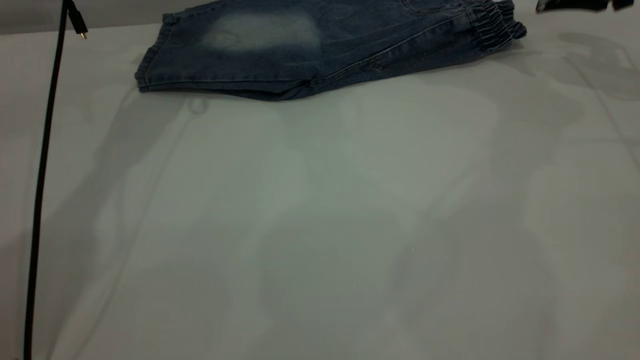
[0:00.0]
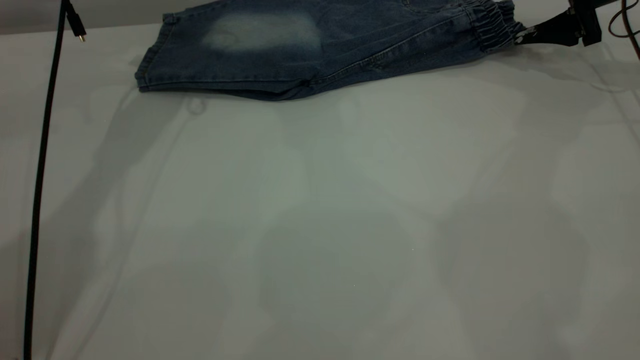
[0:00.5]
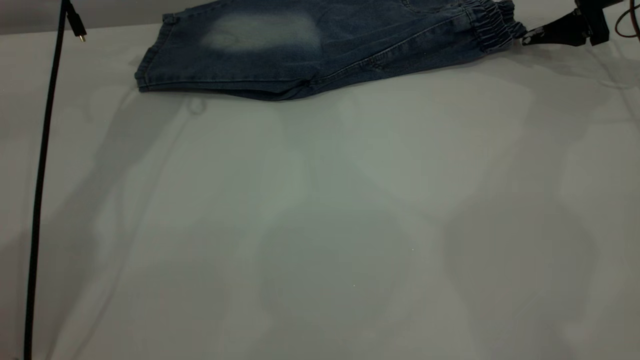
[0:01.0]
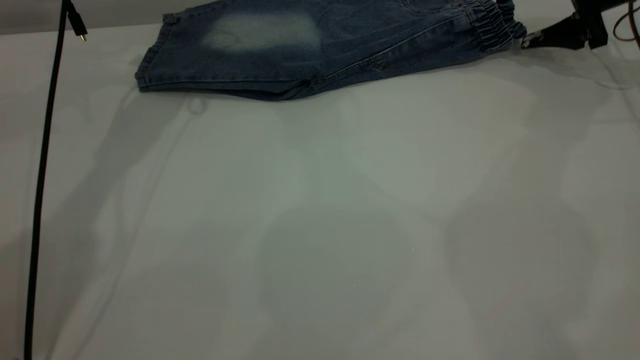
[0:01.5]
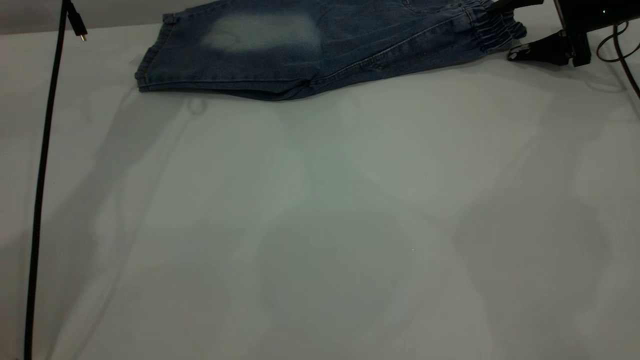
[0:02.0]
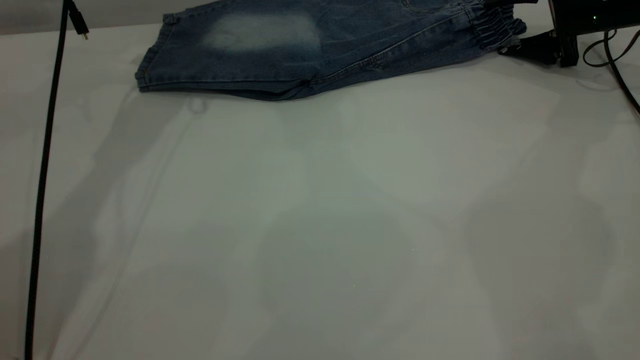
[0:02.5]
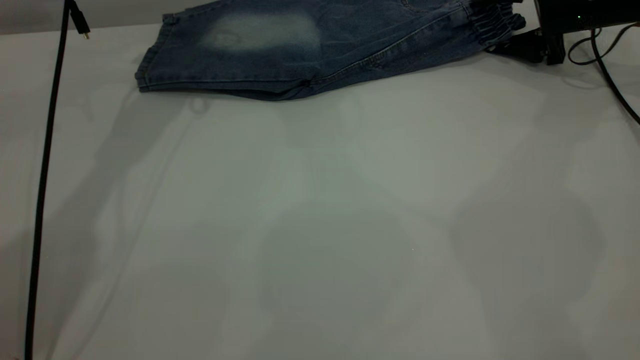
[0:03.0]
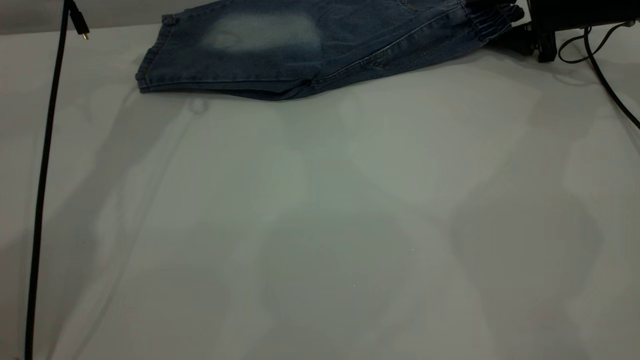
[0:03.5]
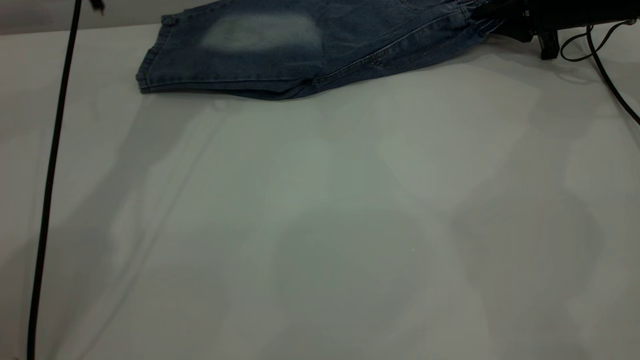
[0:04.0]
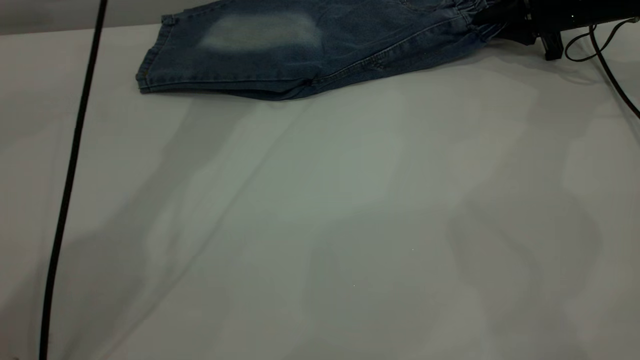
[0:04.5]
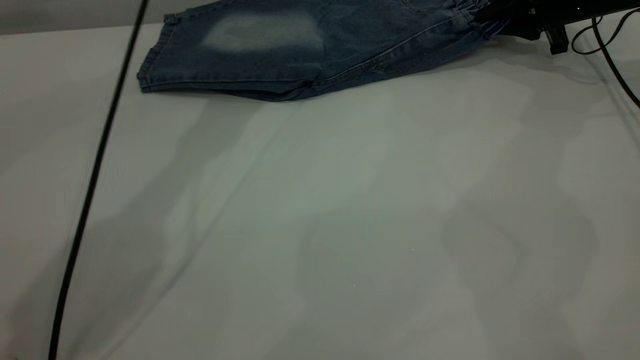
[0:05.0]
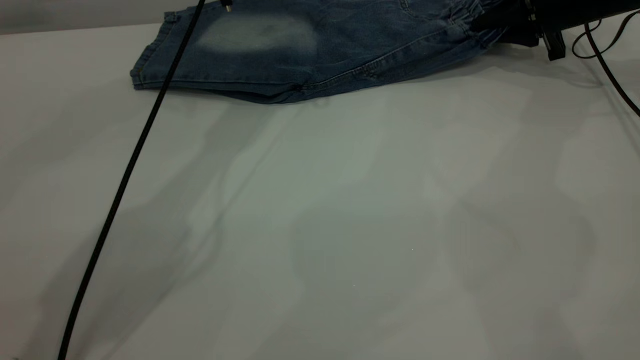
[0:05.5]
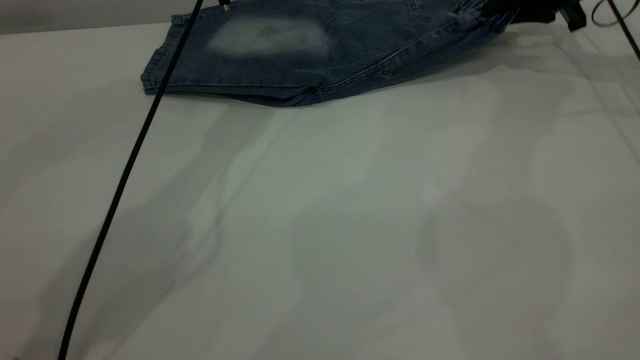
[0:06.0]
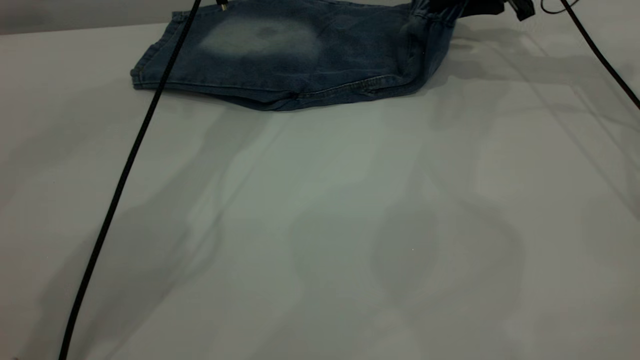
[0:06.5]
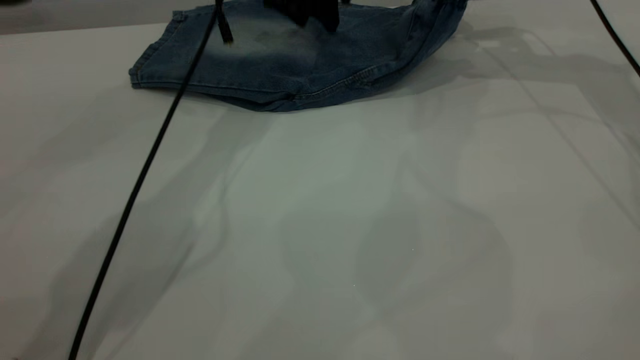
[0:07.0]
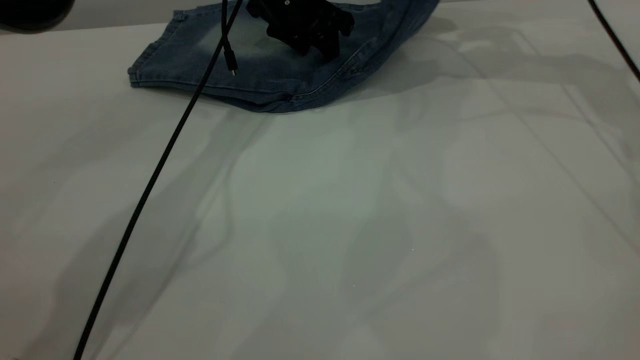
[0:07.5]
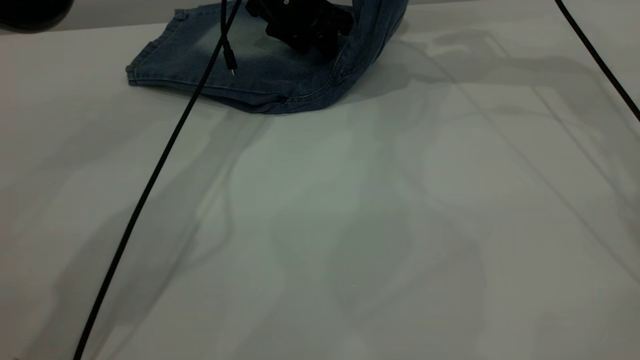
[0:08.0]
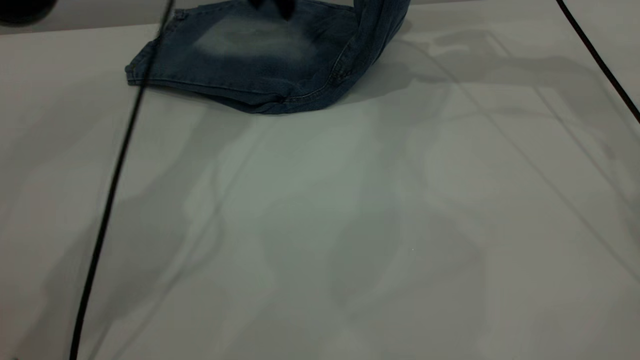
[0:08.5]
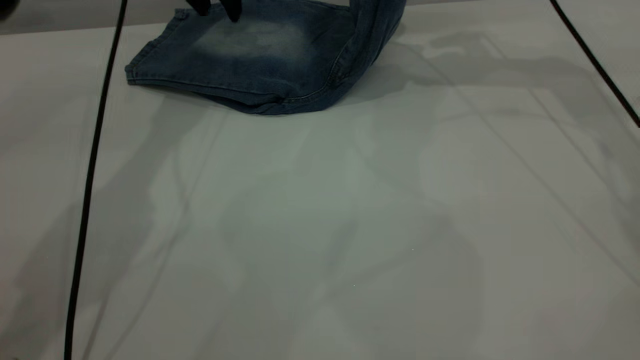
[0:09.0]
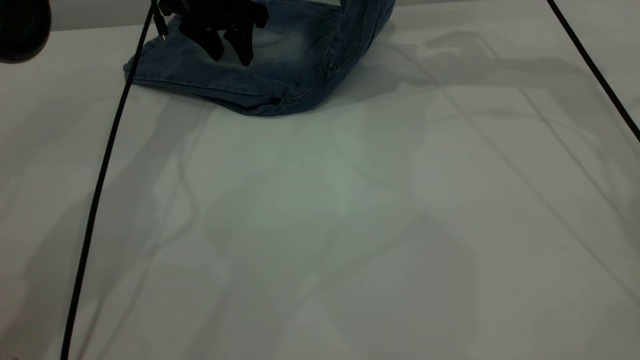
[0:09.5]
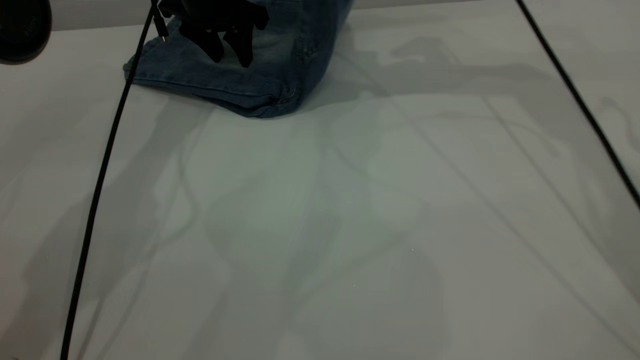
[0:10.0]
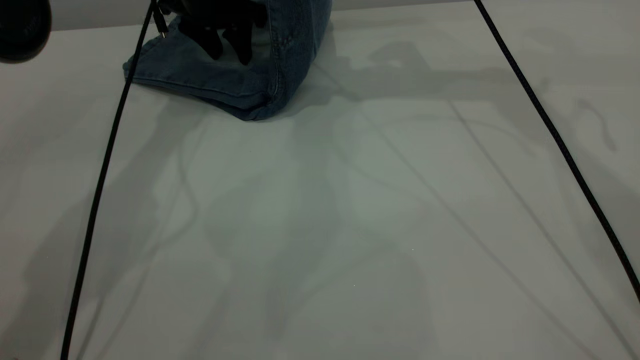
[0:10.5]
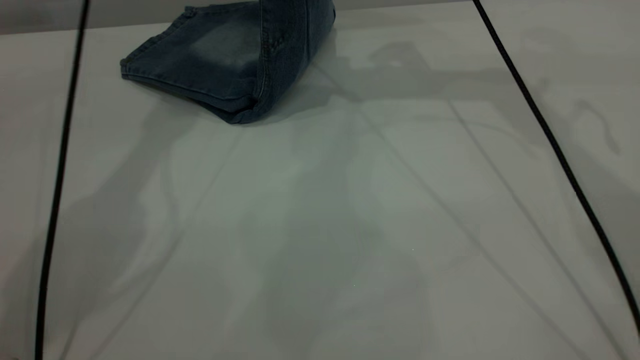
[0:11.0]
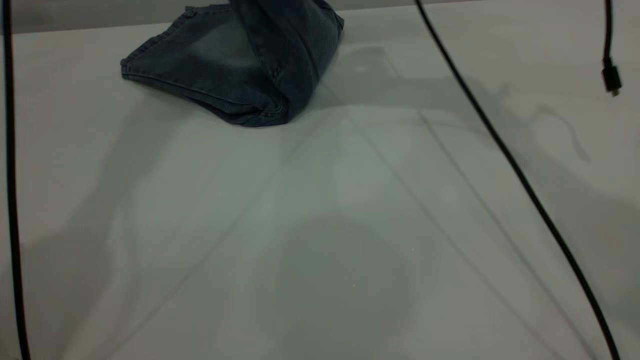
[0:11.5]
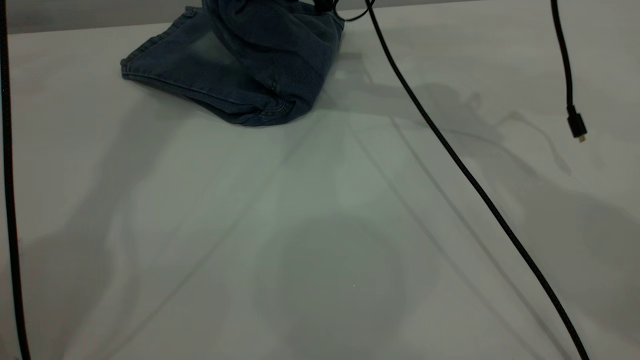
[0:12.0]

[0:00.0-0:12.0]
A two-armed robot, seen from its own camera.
0:00.0 to 0:02.0: The right gripper is displaced downward by about 10 cm.
0:02.0 to 0:04.0: The left gripper shifts by some 5 cm, while the right gripper closes its fingers.
0:04.0 to 0:06.0: The right gripper heads upward, covering approximately 5 cm; the left gripper shifts some 10 cm to the right.
0:06.0 to 0:08.0: The right gripper travels to the left and upward by some 15 cm. The left gripper heads downward, covering about 10 cm.
0:08.0 to 0:10.0: The two grippers go some 10 cm to the left.
0:10.0 to 0:12.0: The right gripper moves to the left and downward, roughly 15 cm; the left gripper moves upward, roughly 30 cm.

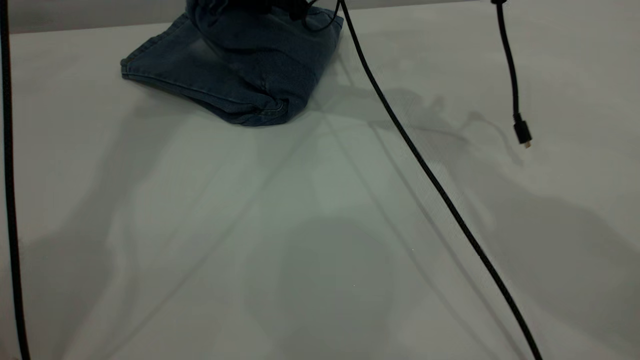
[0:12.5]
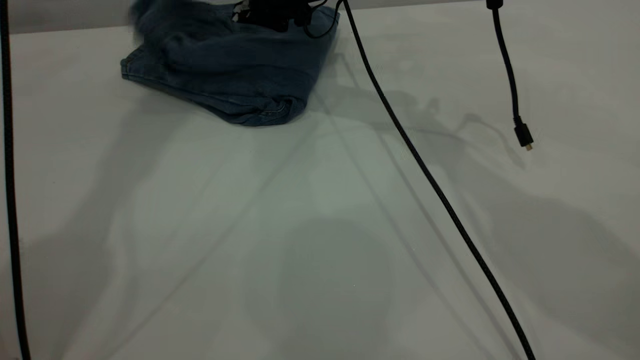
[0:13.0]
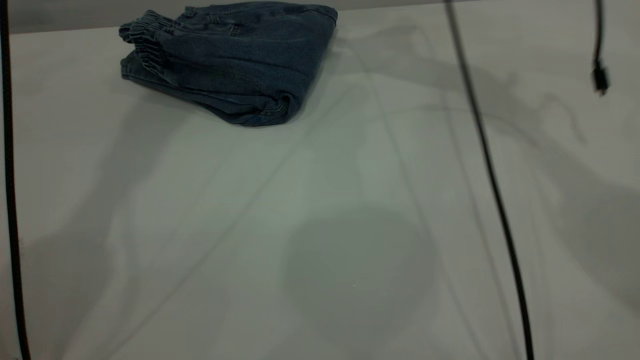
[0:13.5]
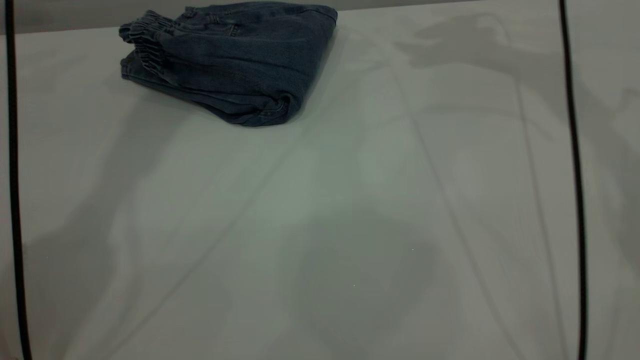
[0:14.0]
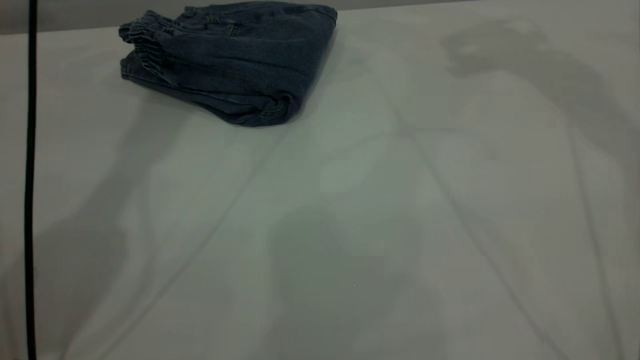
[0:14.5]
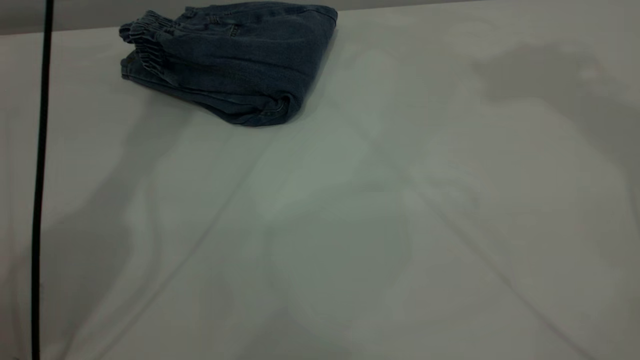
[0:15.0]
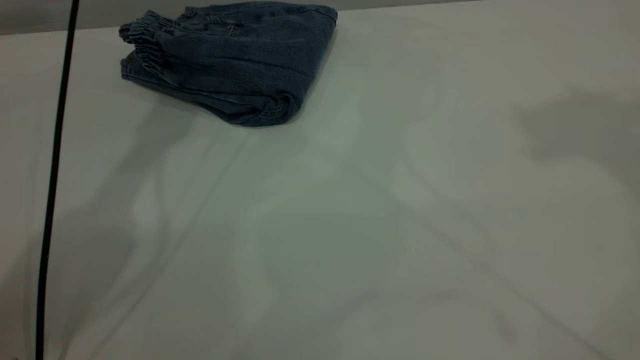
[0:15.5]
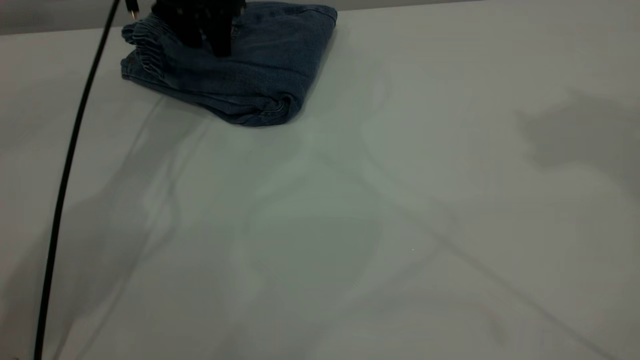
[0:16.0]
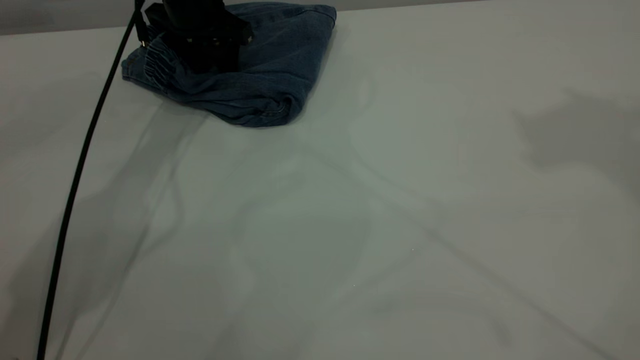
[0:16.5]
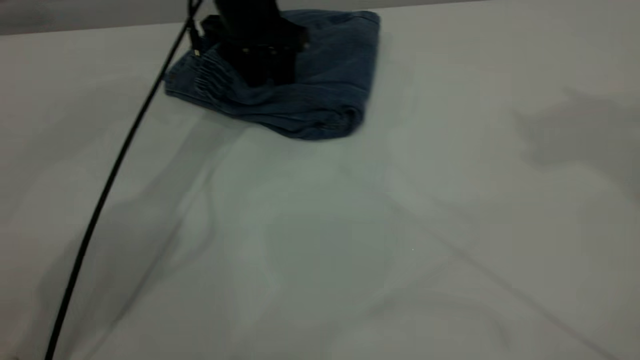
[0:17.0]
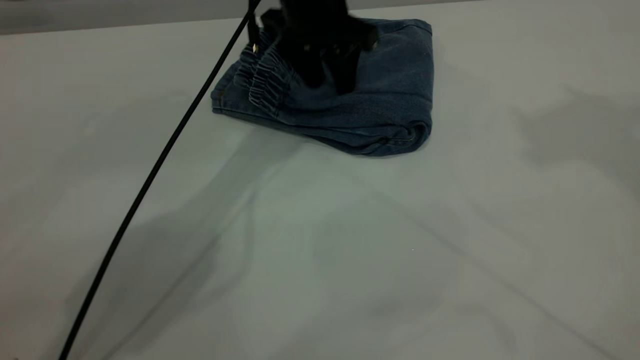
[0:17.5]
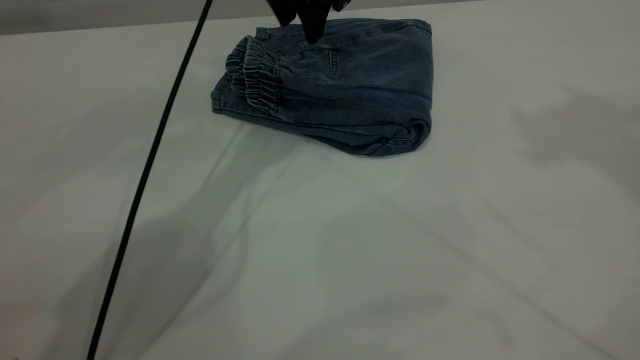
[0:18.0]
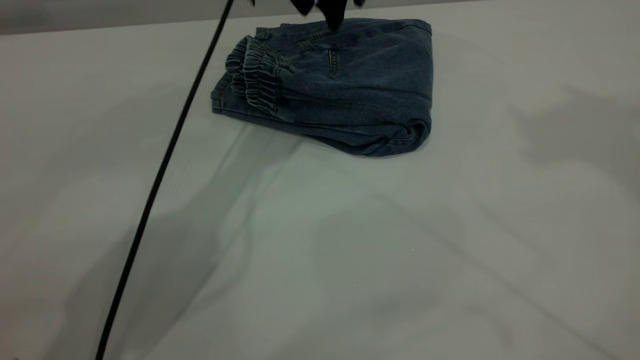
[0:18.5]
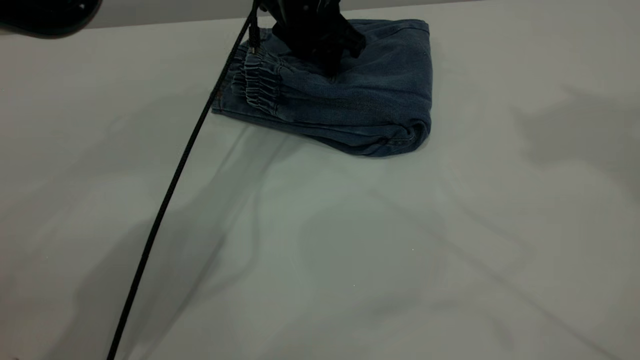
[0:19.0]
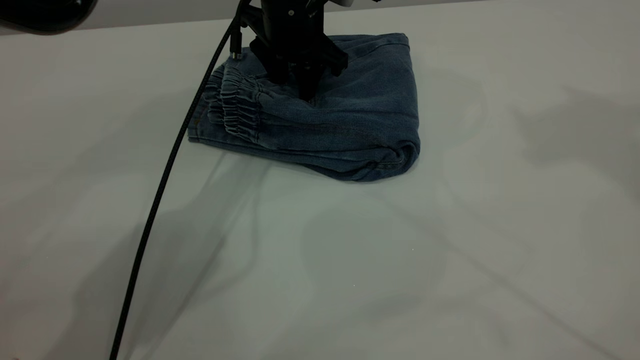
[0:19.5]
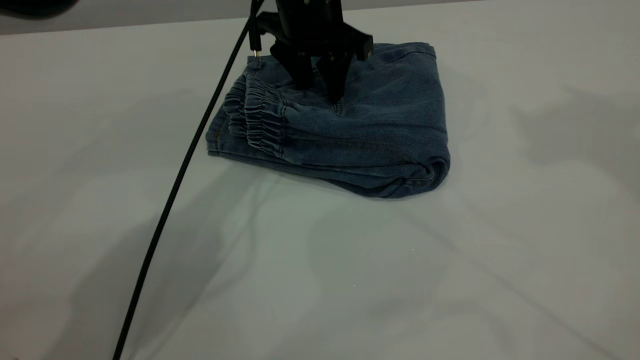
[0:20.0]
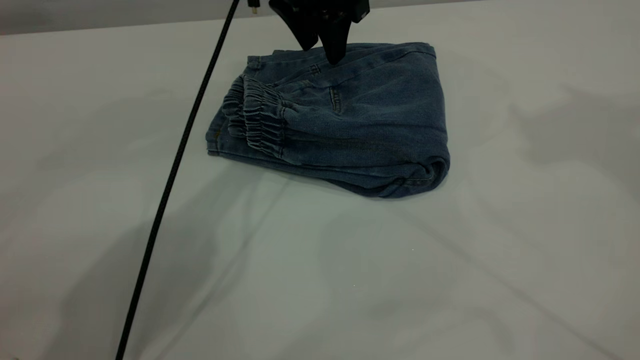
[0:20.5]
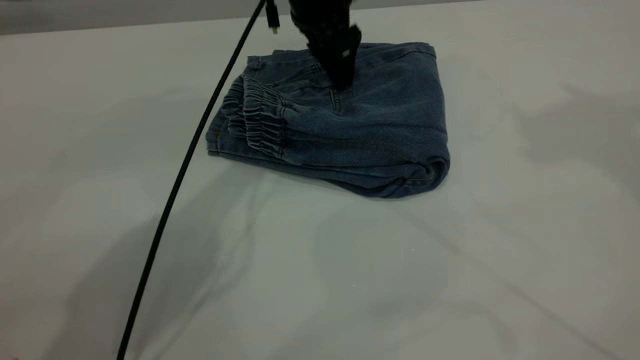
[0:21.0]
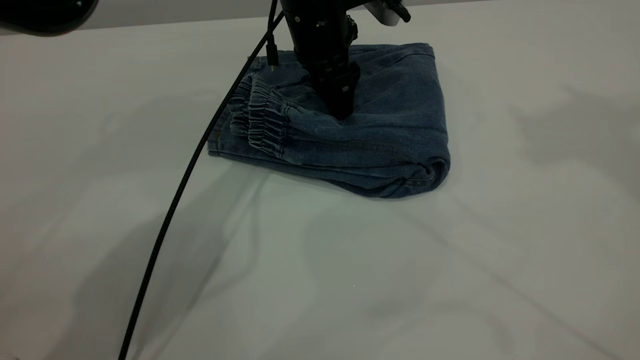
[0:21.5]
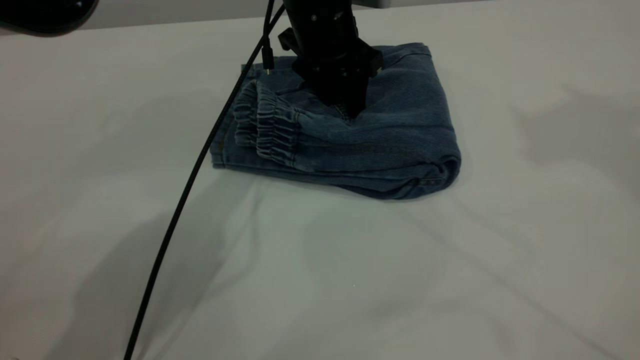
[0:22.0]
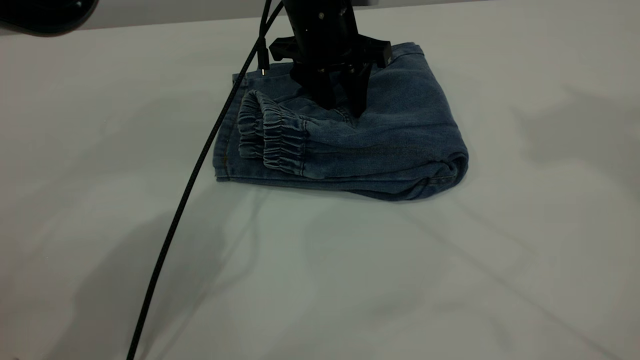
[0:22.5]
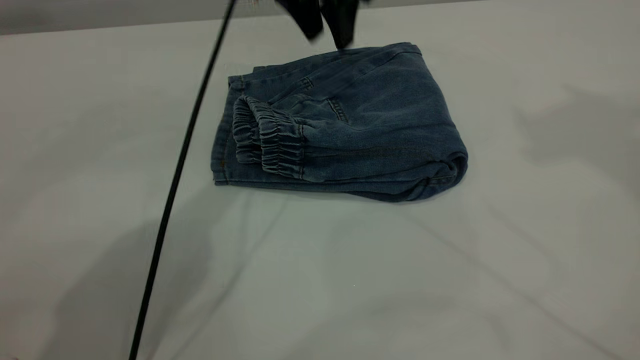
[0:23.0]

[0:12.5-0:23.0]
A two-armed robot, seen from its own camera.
0:12.5 to 0:14.5: The left gripper is displaced downward by some 5 cm. The right gripper heads upward and to the right, covering about 35 cm, and opens up.
0:14.5 to 0:16.5: The left gripper goes some 25 cm downward, while the right gripper moves backward and upward, some 20 cm.
0:16.5 to 0:19.0: The left gripper travels to the right by some 15 cm.
0:21.0 to 0:23.0: The left gripper moves upward, about 5 cm.
